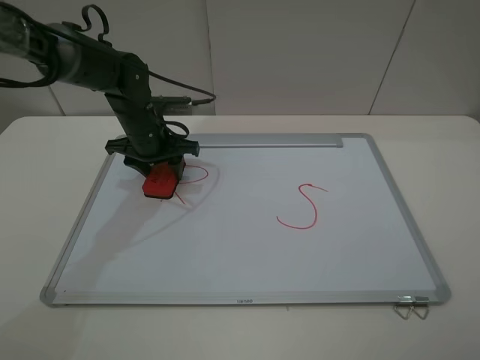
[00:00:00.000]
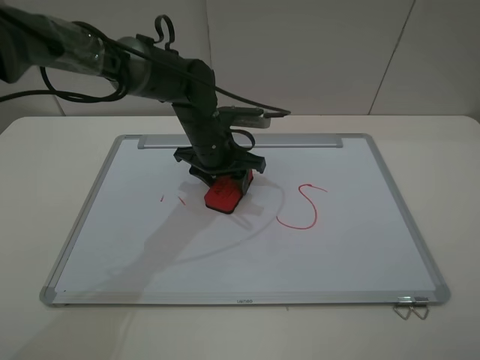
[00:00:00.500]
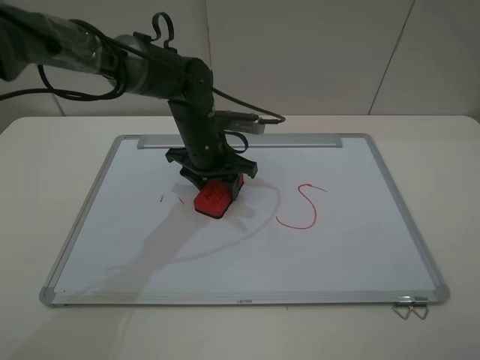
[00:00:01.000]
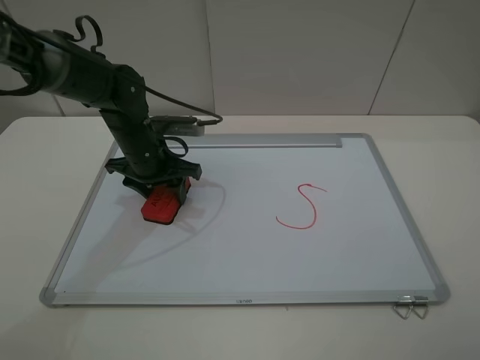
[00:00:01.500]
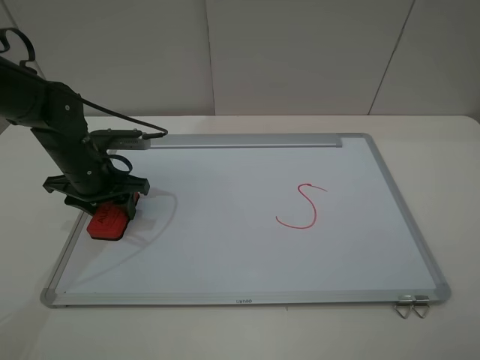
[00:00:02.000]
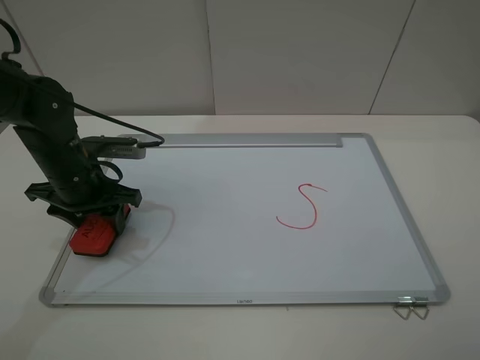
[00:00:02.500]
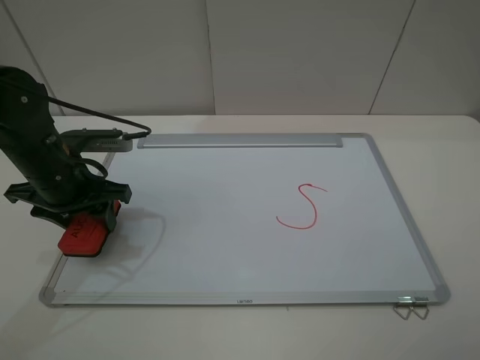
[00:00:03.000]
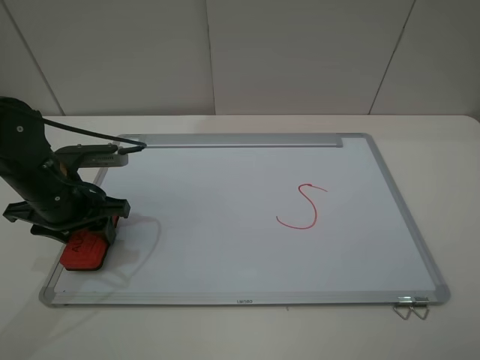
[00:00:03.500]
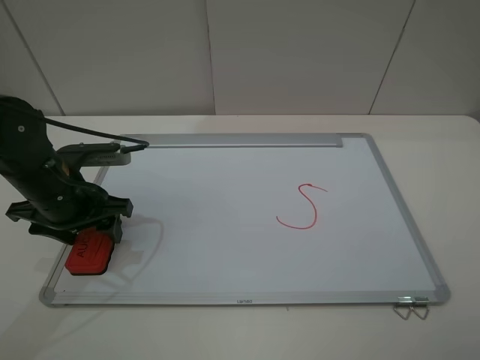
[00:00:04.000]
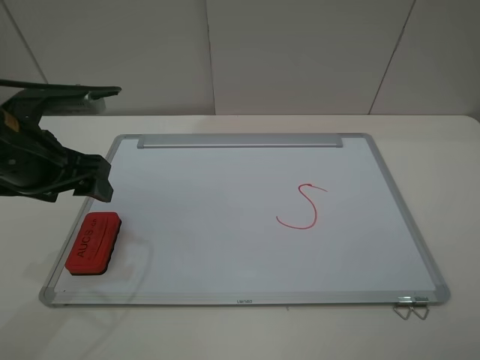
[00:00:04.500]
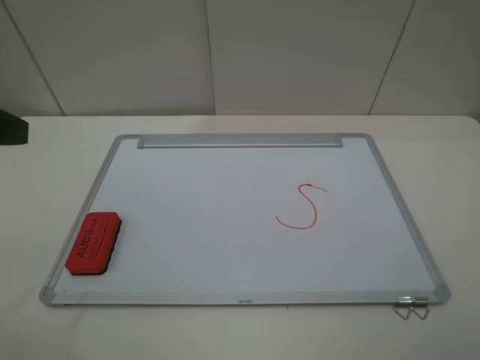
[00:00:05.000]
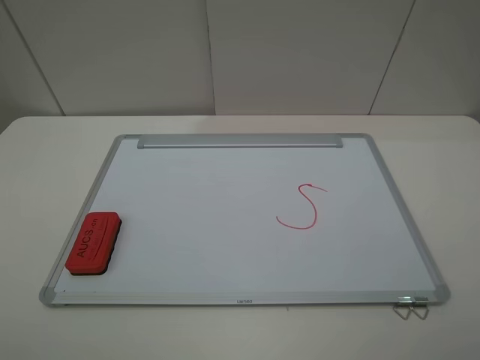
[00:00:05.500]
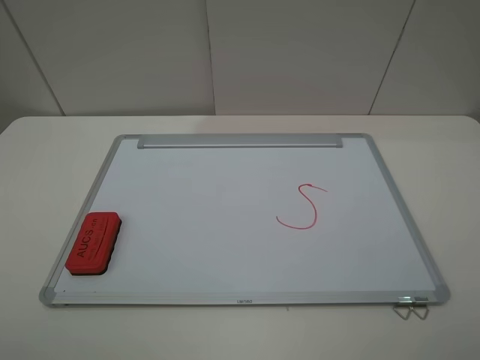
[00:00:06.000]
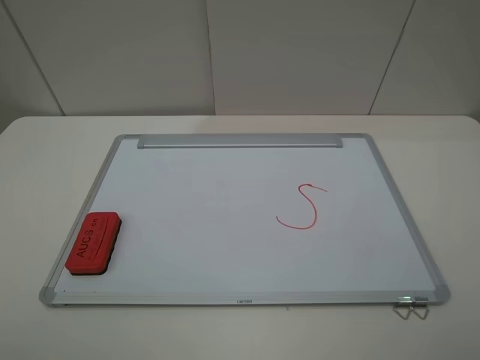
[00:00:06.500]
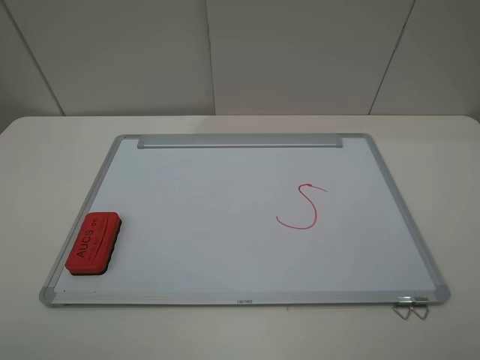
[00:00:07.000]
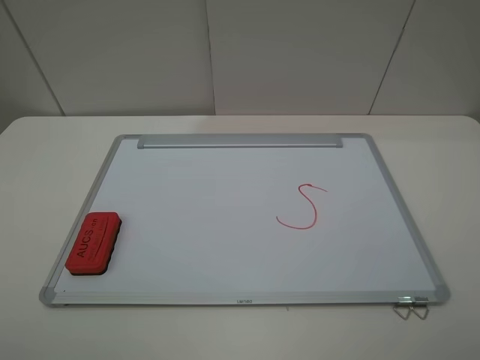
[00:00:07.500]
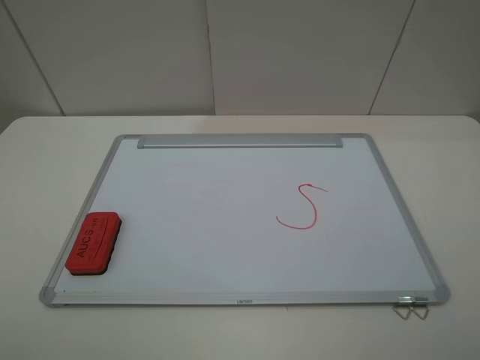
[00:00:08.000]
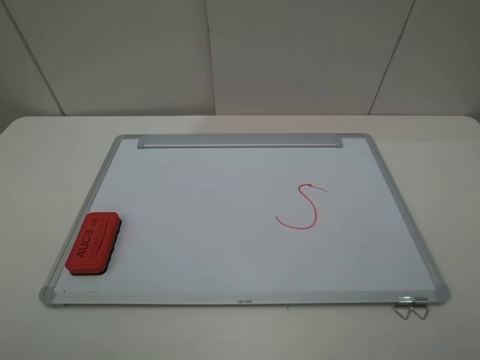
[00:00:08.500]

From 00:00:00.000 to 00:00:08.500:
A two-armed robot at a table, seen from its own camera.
Step, from 00:00:00.000 to 00:00:02.500: Grasp the eraser and wipe the blackboard with the left gripper.
Step, from 00:00:03.000 to 00:00:04.000: Place the eraser with the left gripper.
From 00:00:00.000 to 00:00:02.000: The left gripper moves backward and to the left, roughly 10 cm.
From 00:00:02.000 to 00:00:04.000: The left gripper travels backward by some 5 cm, and opens.
From 00:00:04.000 to 00:00:06.500: The left gripper travels backward and upward by roughly 30 cm, and opens up.
